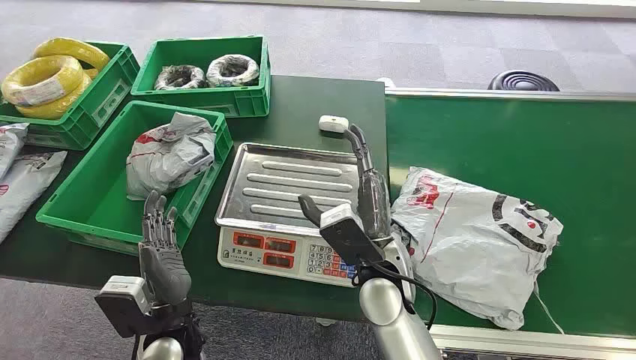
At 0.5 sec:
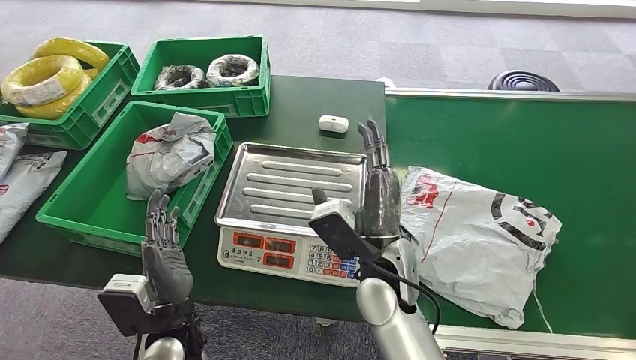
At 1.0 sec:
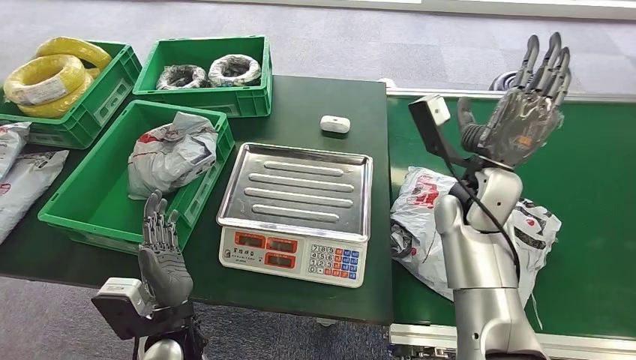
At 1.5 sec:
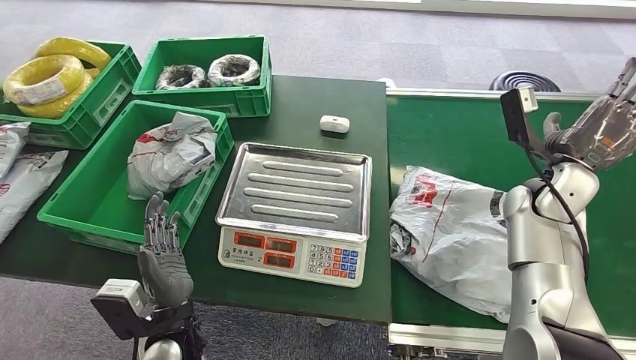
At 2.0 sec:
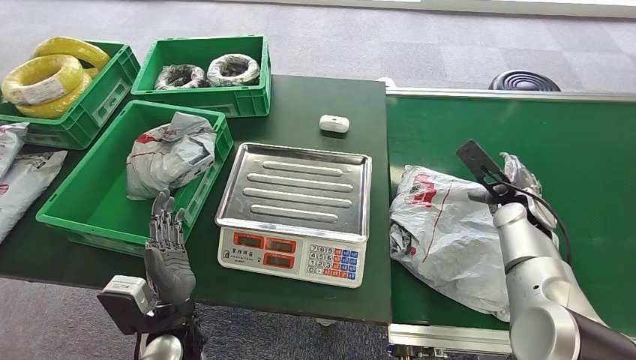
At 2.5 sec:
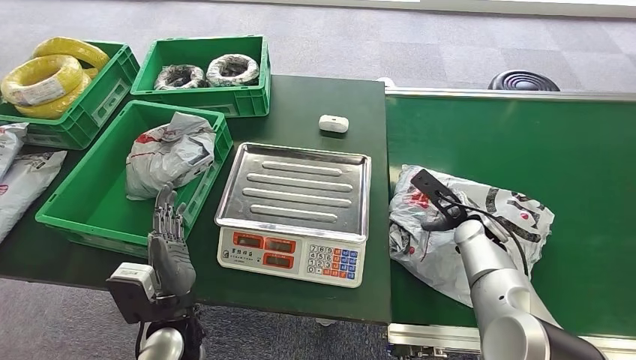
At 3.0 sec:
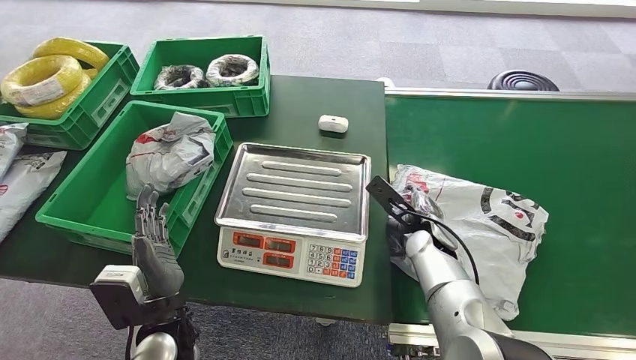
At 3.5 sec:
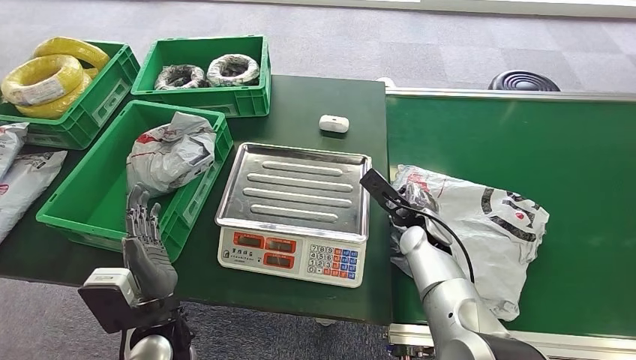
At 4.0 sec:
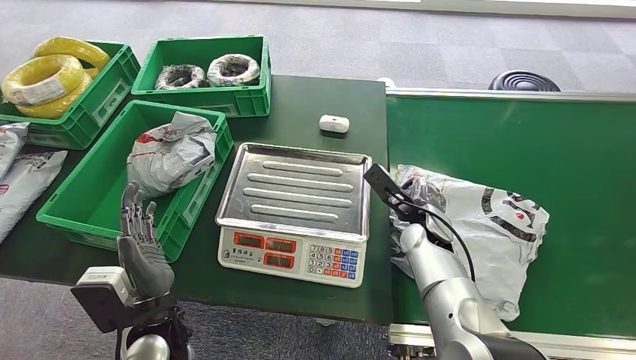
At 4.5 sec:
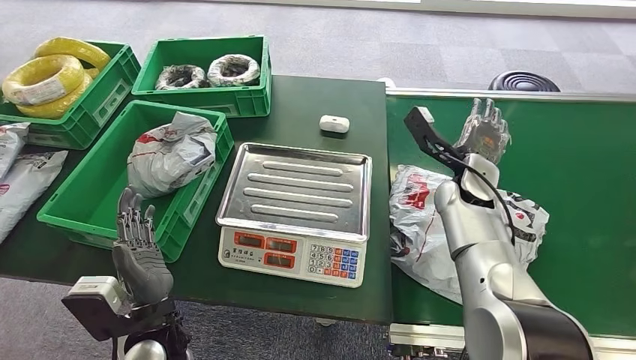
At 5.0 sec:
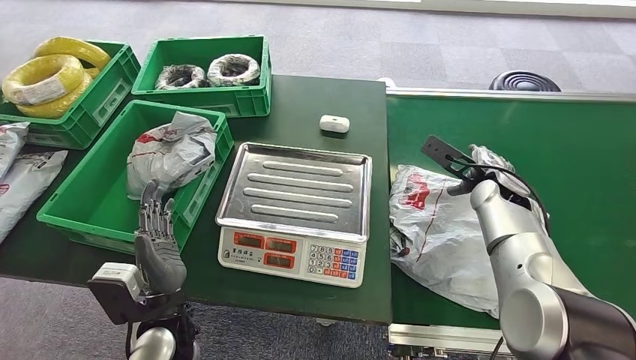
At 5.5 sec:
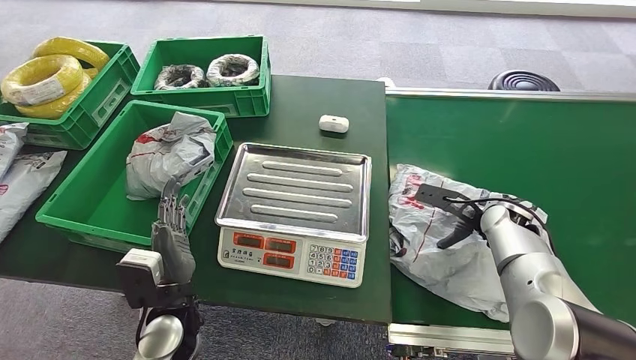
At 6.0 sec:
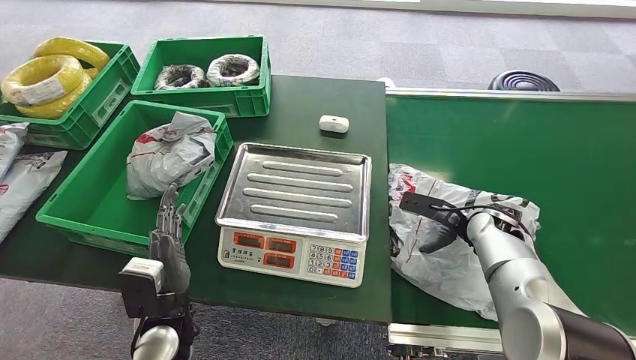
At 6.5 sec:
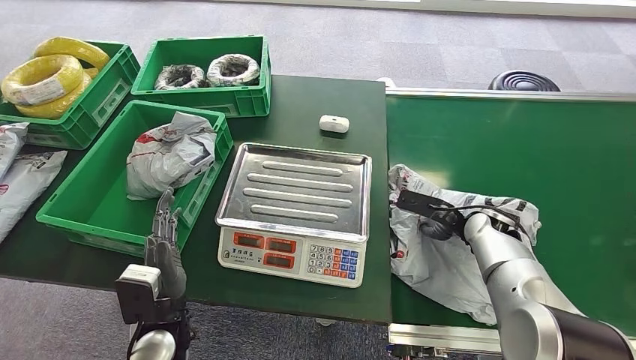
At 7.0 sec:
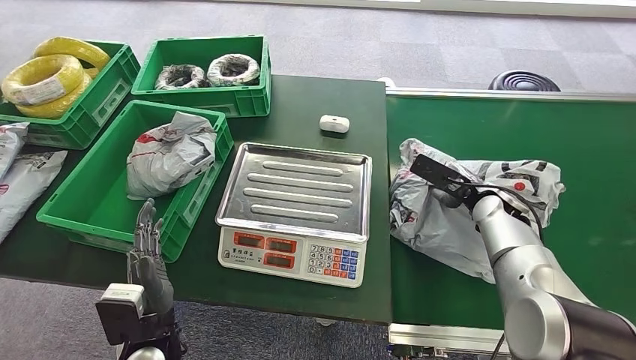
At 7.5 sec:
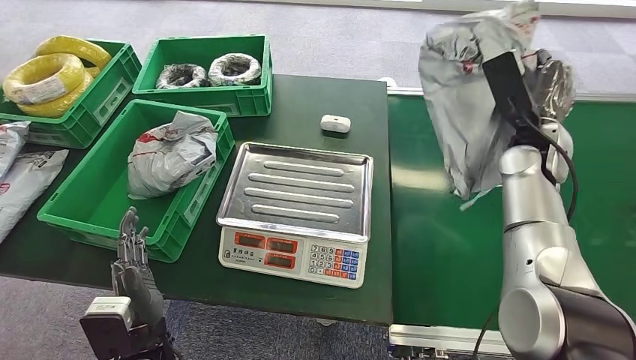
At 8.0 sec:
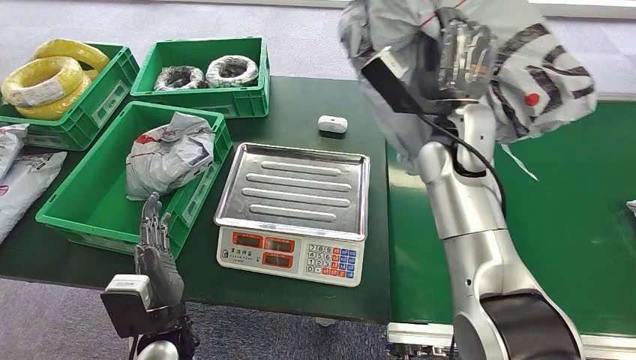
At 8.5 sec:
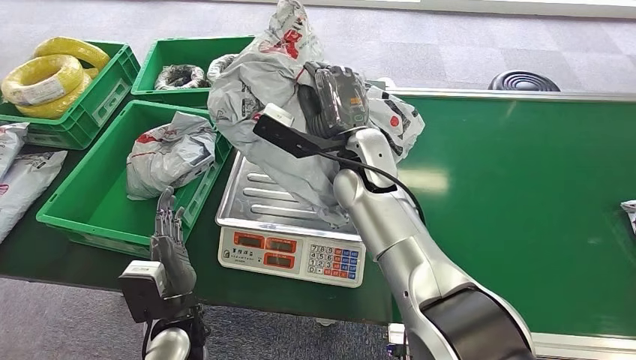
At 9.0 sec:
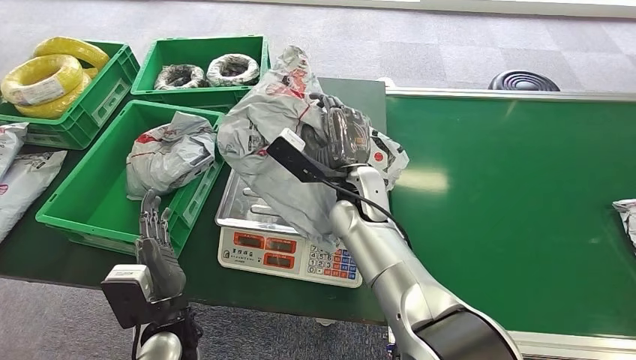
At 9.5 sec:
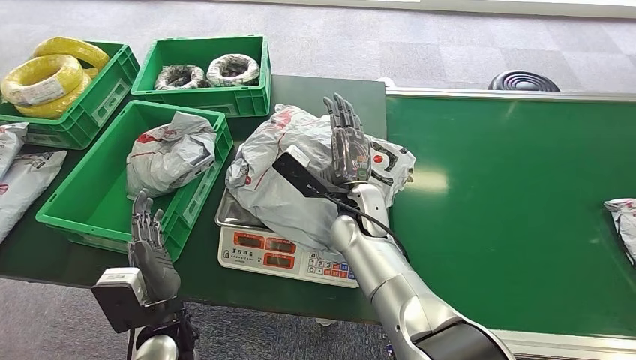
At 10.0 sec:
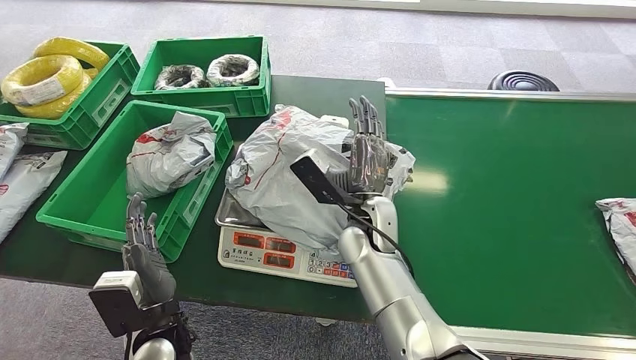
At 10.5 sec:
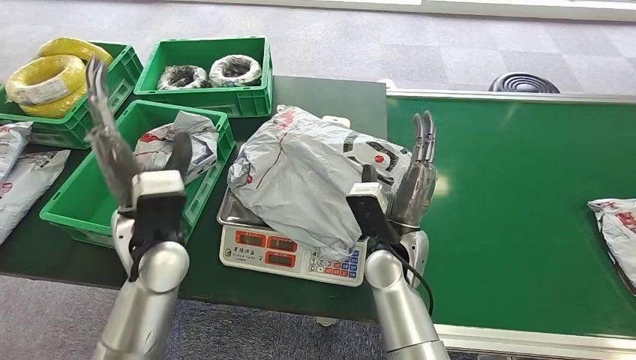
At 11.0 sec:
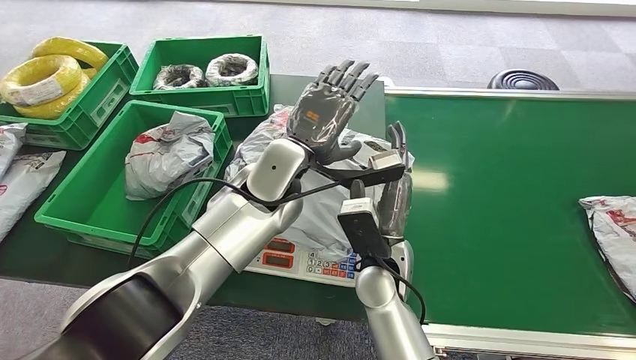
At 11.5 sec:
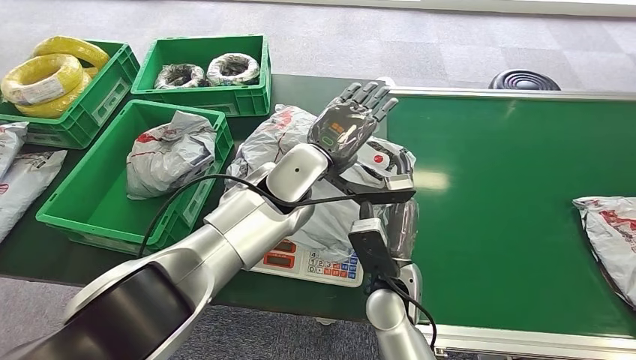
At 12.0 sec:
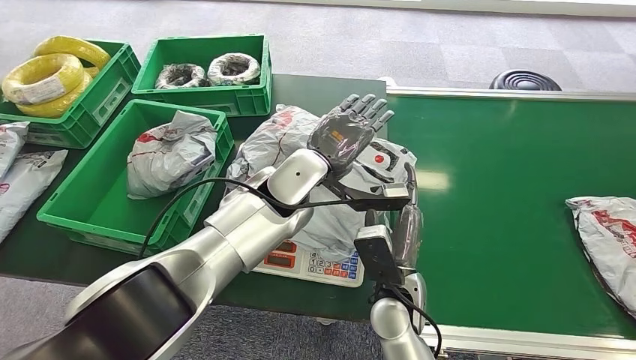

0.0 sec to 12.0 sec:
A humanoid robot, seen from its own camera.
Step, 0.0 sec to 7.5 sec: Pick up the package from the conveyor belt.
Step, 8.0 sec to 10.0 sec: Place the package onto the inbound machine.
2.0 sec to 4.0 sec: The right hand heads to the left, covering about 20 cm.
4.0 sec to 6.0 sec: The right hand goes some 15 cm to the right.

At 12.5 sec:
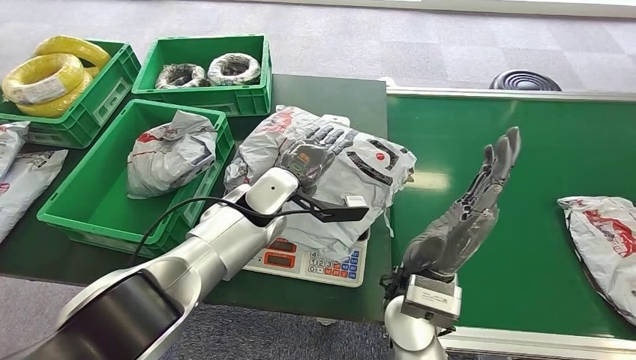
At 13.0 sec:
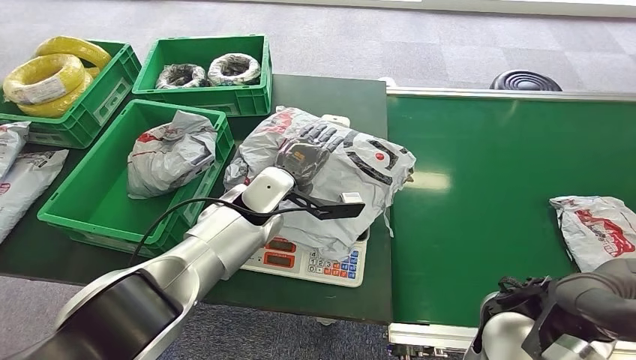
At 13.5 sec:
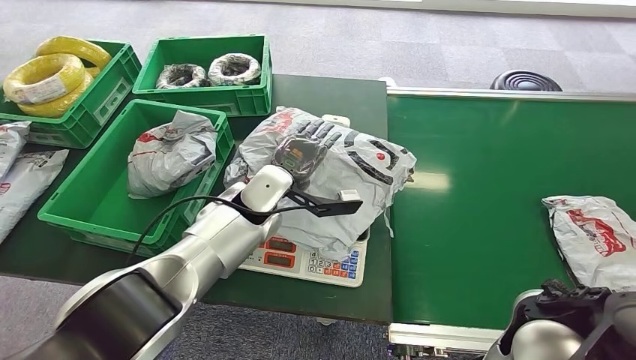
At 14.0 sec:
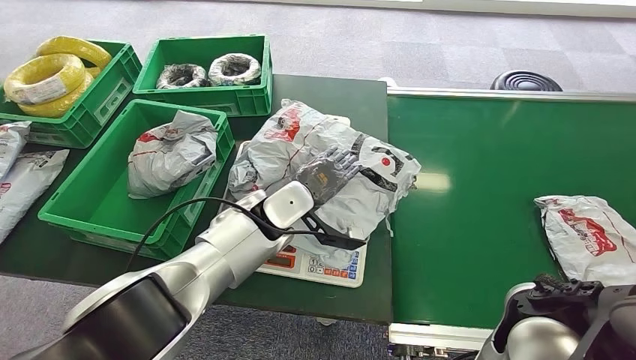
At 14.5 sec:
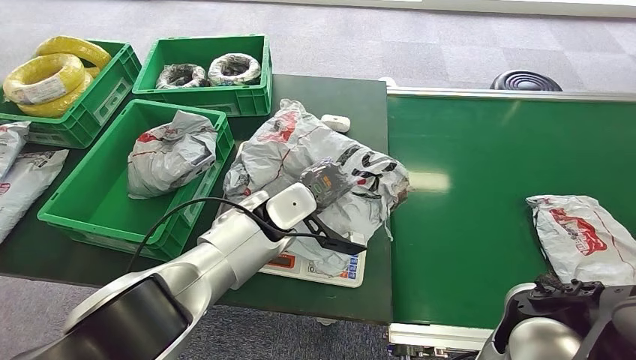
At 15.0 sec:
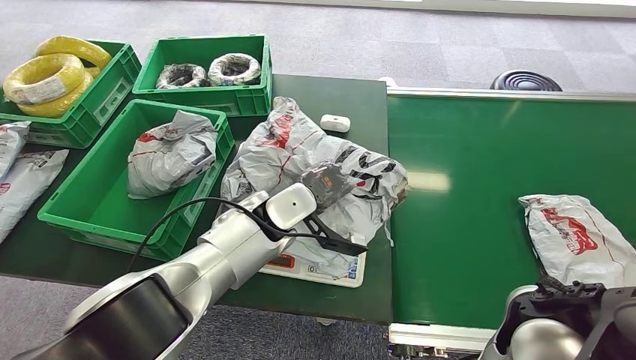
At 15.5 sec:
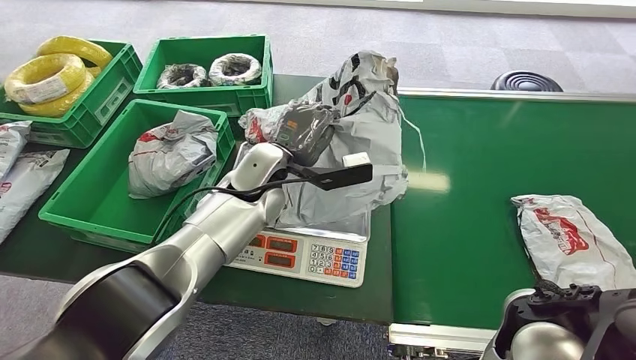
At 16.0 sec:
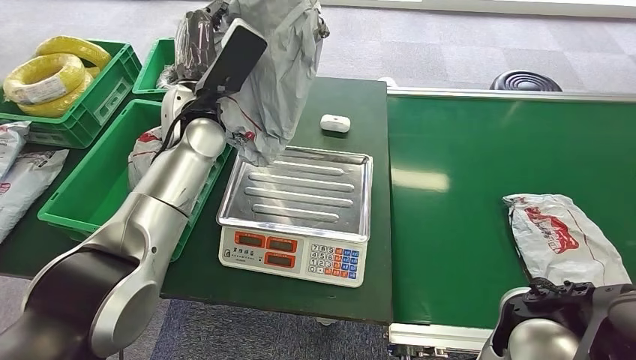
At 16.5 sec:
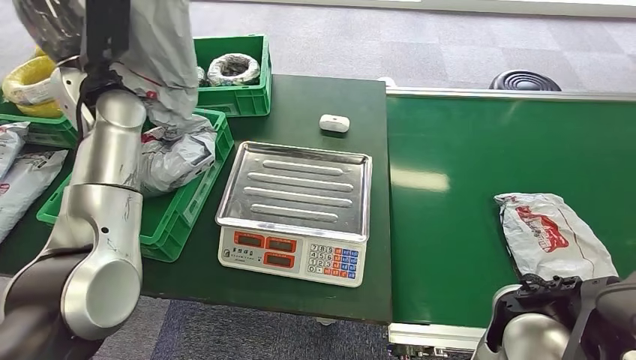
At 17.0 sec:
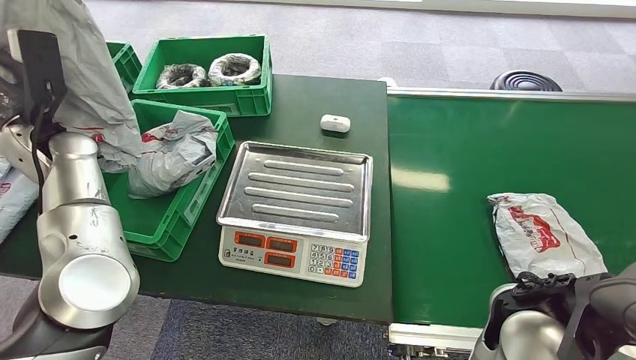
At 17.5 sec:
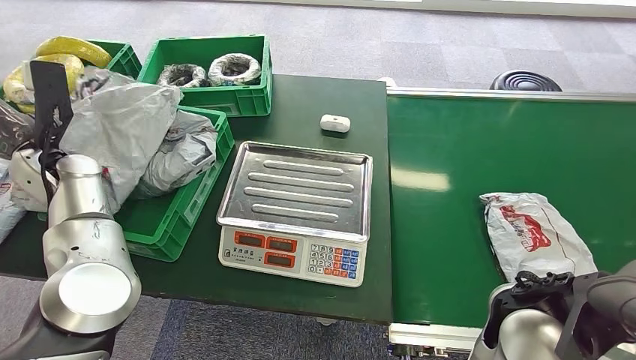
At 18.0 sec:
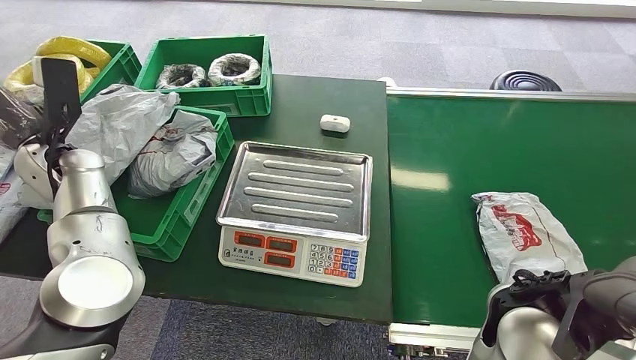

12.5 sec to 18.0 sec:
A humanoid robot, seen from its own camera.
Step, 12.5 sec to 16.0 sec: Pick up the package from the inbound machine.
Step, 16.5 sec to 18.0 sec: Place the package into the parcel locker.
